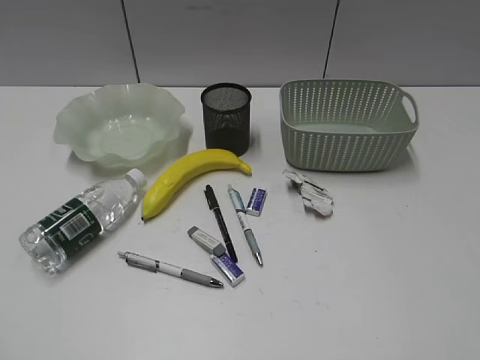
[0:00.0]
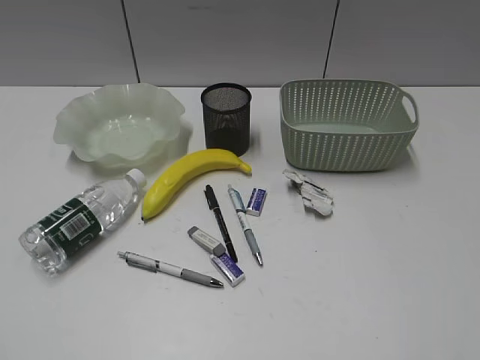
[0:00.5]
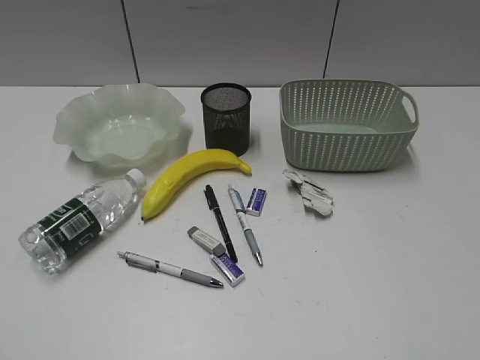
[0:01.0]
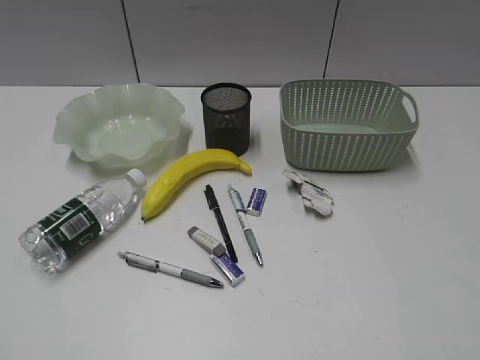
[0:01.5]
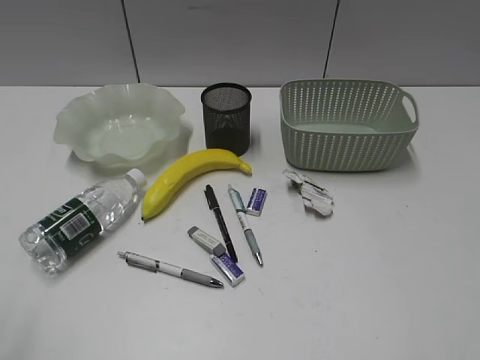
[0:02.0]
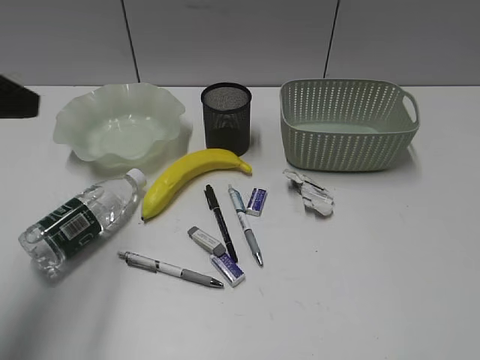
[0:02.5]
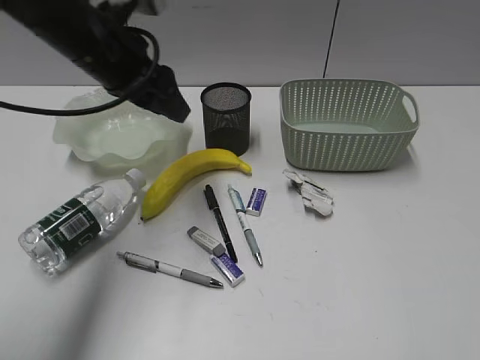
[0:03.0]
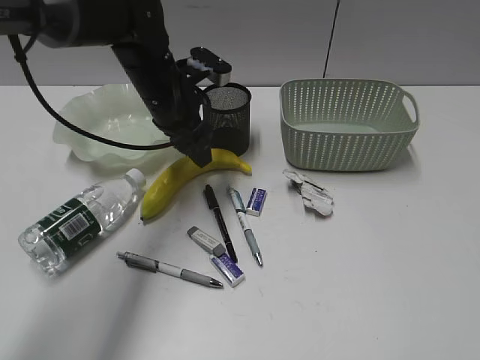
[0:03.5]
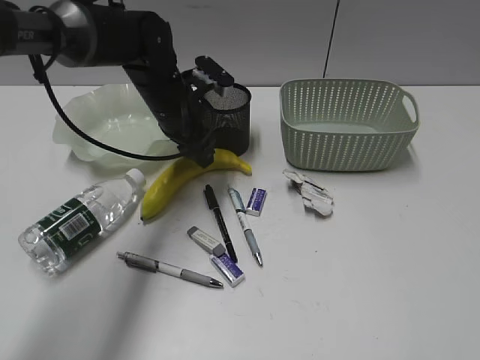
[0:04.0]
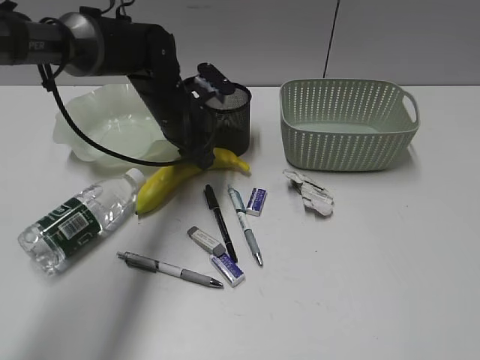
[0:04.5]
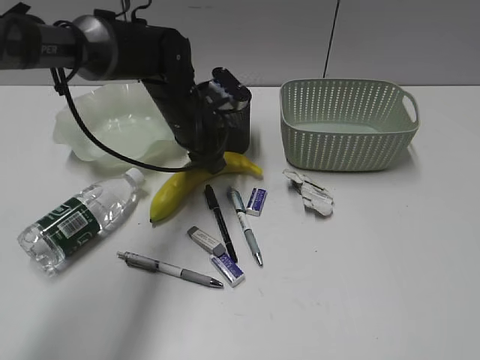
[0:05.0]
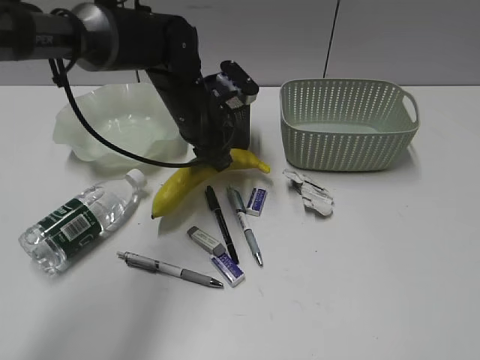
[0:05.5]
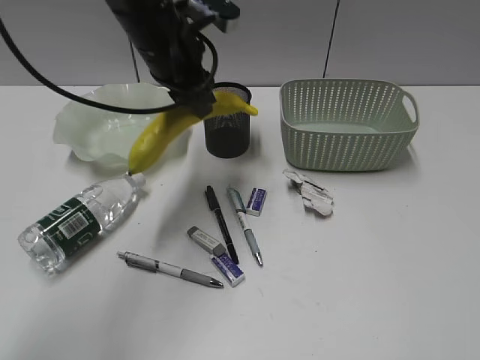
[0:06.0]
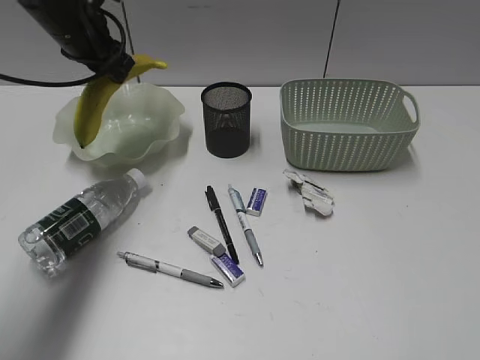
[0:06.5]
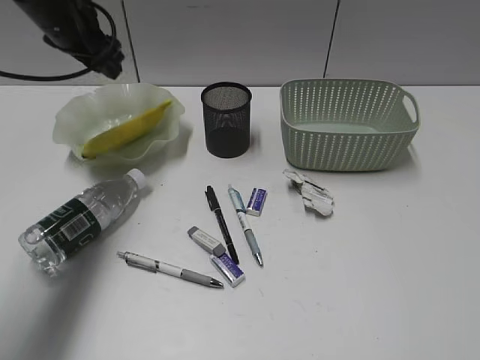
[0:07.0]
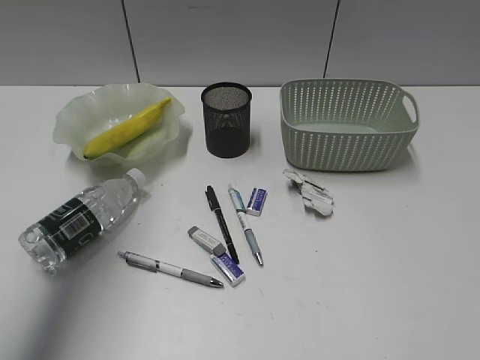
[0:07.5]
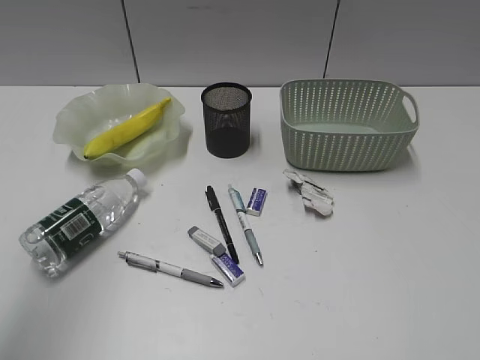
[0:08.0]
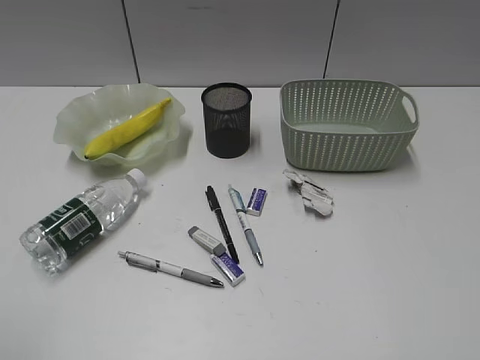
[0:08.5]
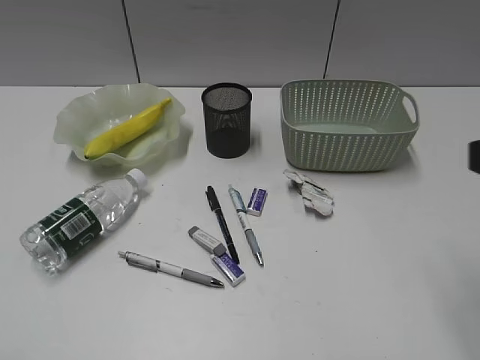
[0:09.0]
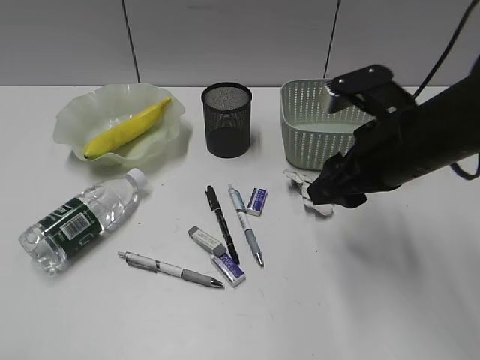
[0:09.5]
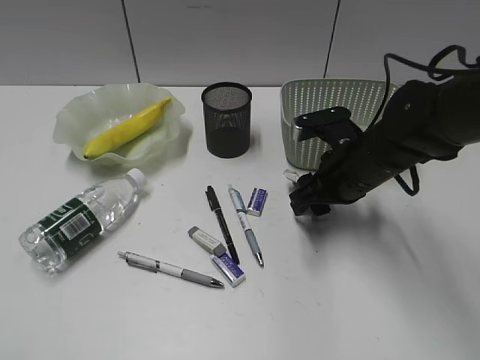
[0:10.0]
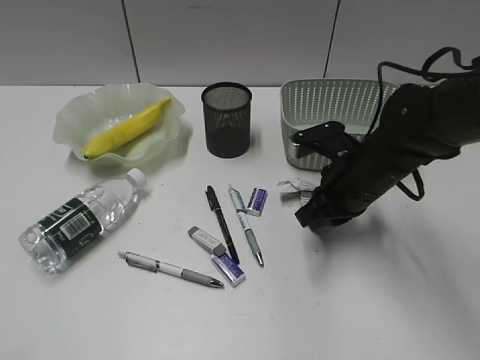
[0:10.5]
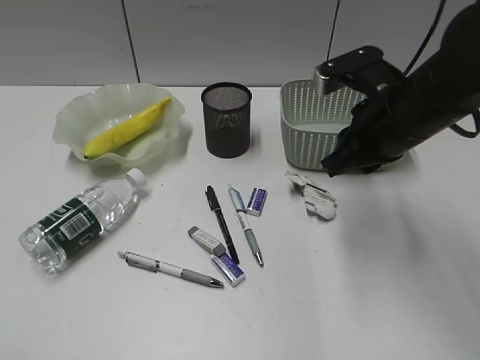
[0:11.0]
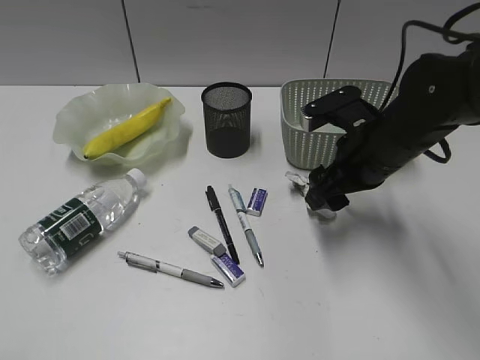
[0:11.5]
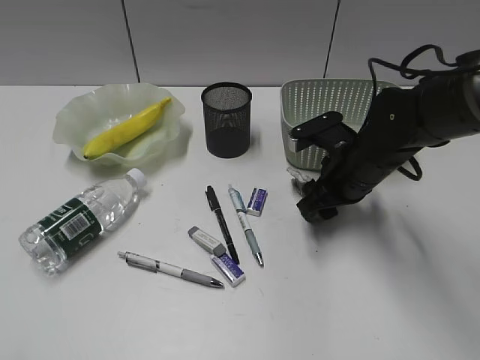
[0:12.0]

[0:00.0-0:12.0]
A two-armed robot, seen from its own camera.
Step, 0:02.0 to 0:04.5: Grasp the banana with left gripper.
Step, 0:05.0 to 0:06.5: Place the banana in the plate with left gripper.
0:02.0 to 0:04.0: The left gripper travels forward, to the right and downward by some 50 cm, and opens up.
0:04.0 to 0:06.0: The left gripper travels upward by approximately 10 cm.
0:06.0 to 0:08.0: The left gripper goes some 35 cm backward, upward and to the left.
0:08.0 to 0:10.0: The right gripper is displaced forward, downward and to the left by about 40 cm. Meanwhile the left gripper is displaced backward and downward by some 25 cm.
0:10.0 to 0:12.0: The right gripper moves approximately 10 cm upward and comes back, and closes, then reopens.

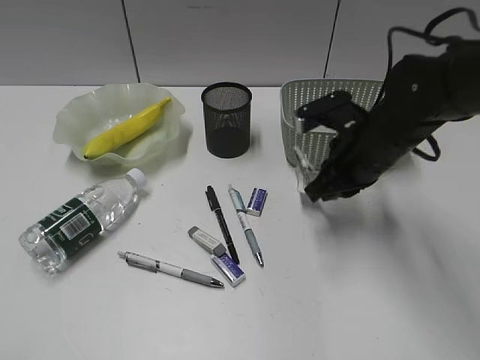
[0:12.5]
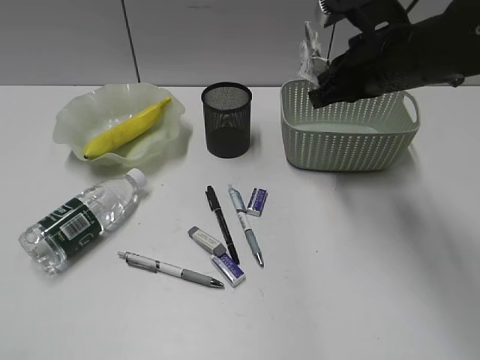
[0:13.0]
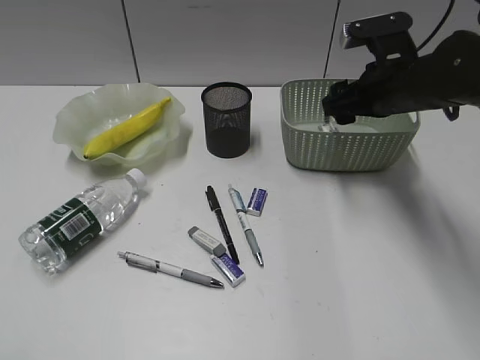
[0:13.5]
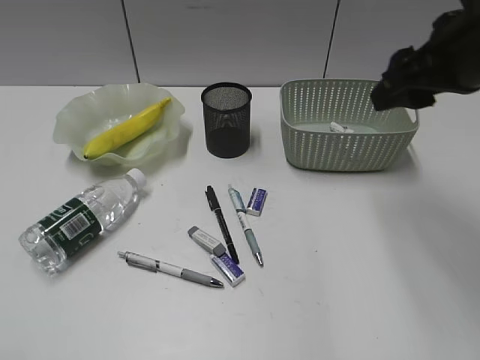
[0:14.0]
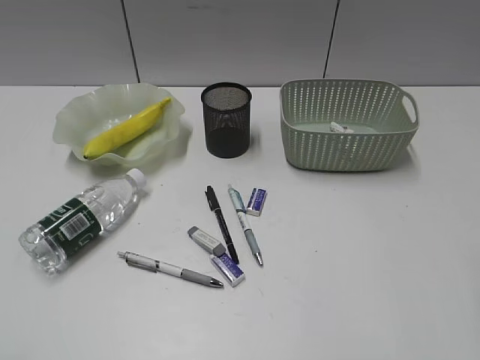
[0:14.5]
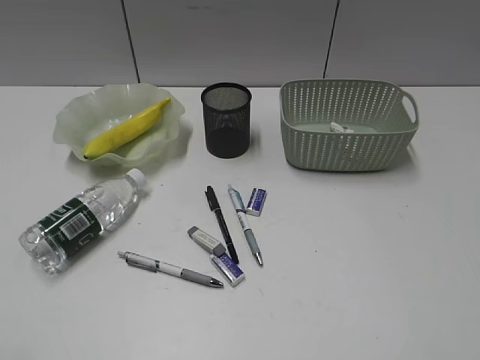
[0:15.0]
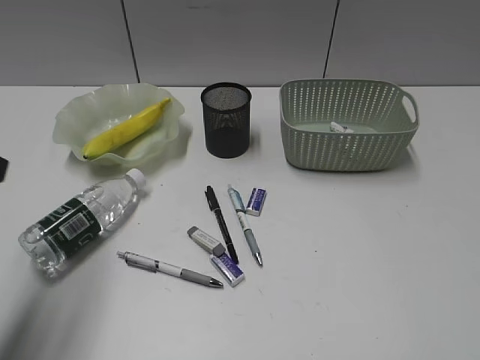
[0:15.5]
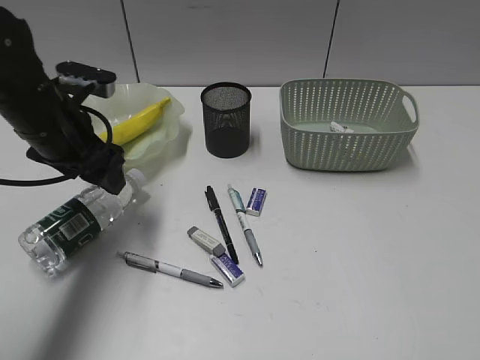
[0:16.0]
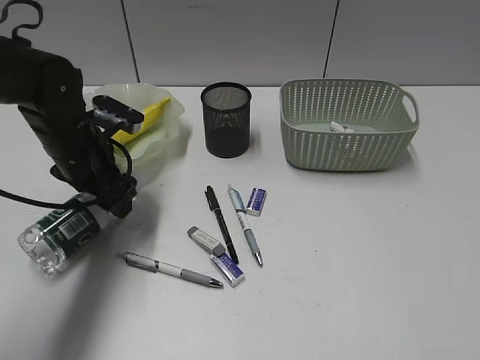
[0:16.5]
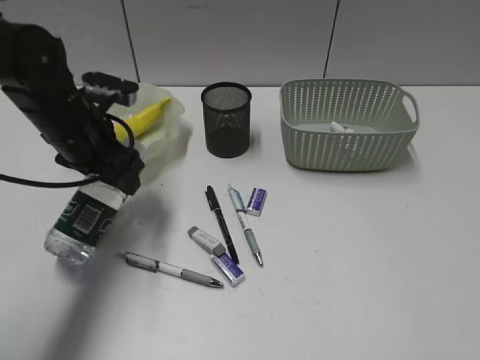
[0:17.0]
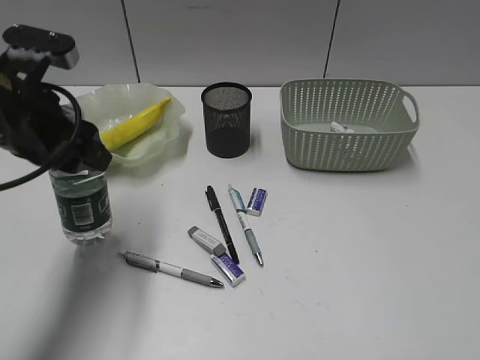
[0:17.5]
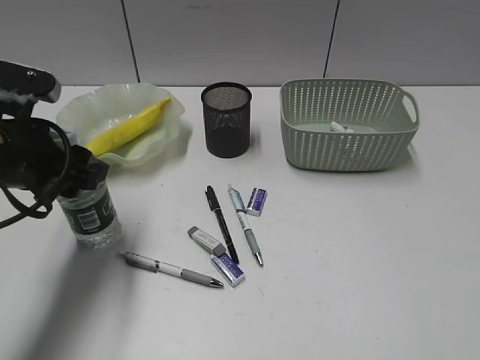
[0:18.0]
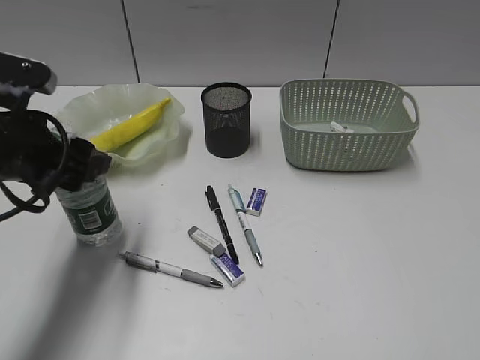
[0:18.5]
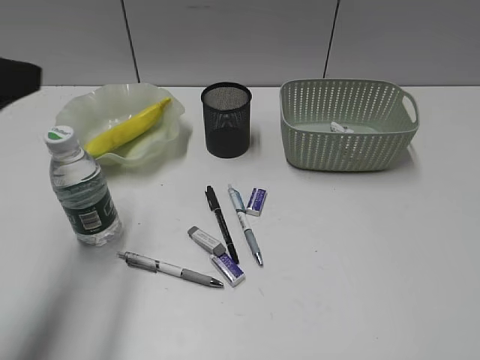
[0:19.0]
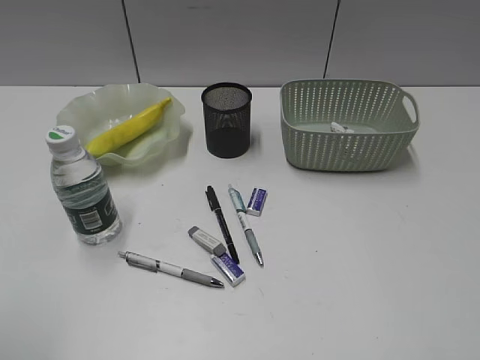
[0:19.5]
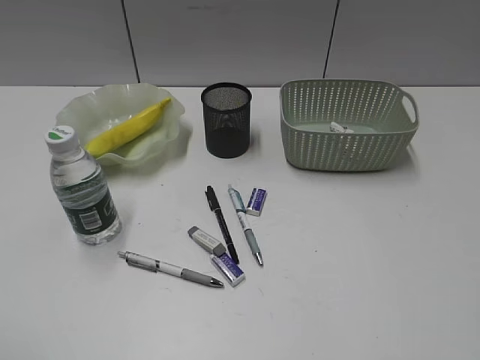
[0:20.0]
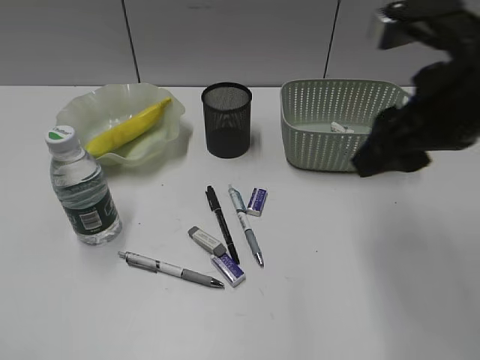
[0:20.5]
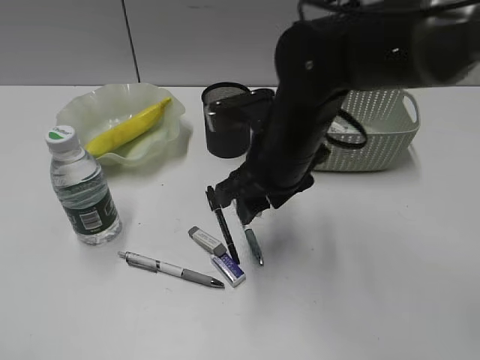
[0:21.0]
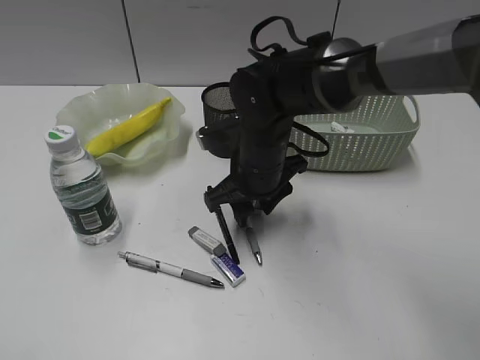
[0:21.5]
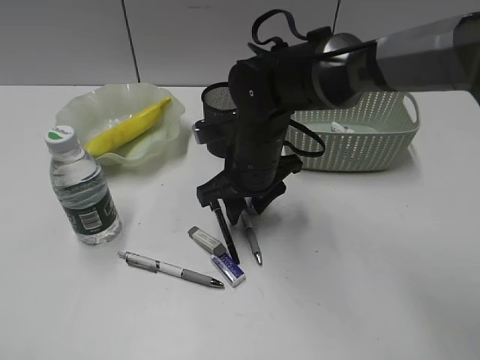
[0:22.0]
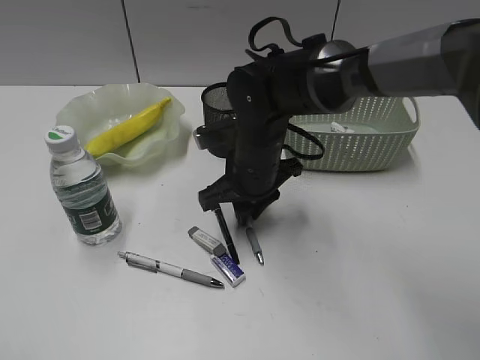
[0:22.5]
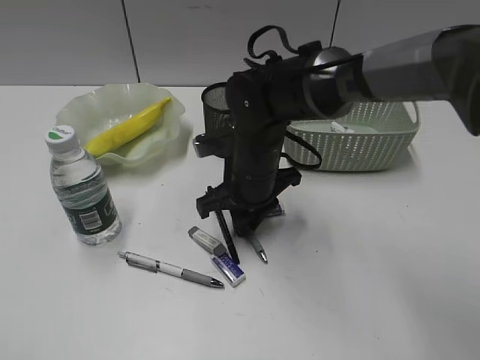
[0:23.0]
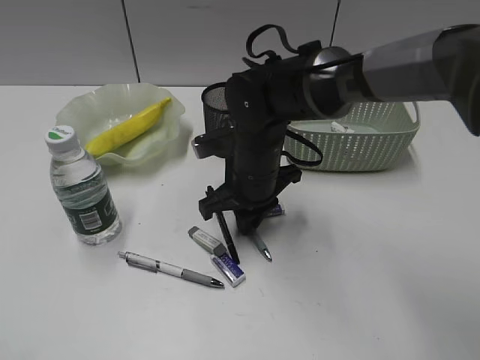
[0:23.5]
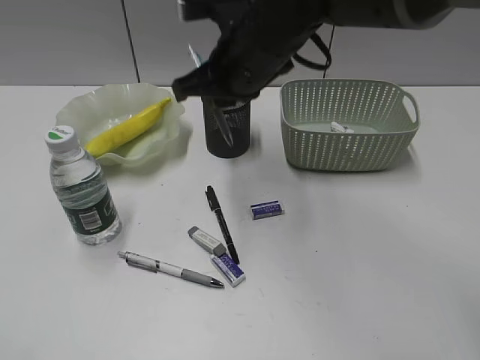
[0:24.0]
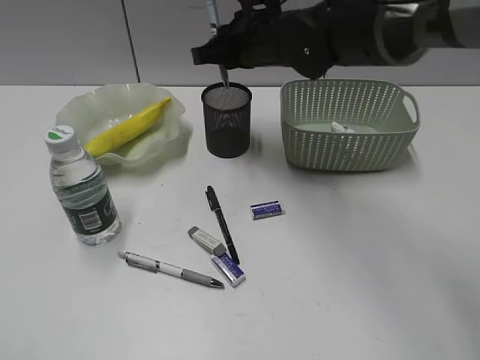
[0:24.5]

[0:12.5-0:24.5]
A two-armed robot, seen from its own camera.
Step, 0:14.0 to 0:16.5: Grasp the bottle with left gripper.
Step, 0:17.0 to 0:18.5: Stand the bottle with left gripper.
Step, 0:19.0 to 0:23.5: Grasp the blue pen with right gripper.
0:12.5 to 0:14.5: The right gripper travels backward, upward and to the right by about 25 cm, and opens up.
0:14.5 to 0:16.5: The left gripper travels forward and downward by some 40 cm.
0:16.5 to 0:18.5: The left gripper travels backward and upward by about 10 cm.
0:18.5 to 0:20.5: The right gripper travels forward and to the left by approximately 30 cm; the left gripper is displaced backward by some 25 cm, and closes.
0:20.5 to 0:22.5: The right gripper shifts some 25 cm downward, to the left and forward, and closes its fingers.
0:22.5 to 0:24.5: The right gripper heads upward and forward, covering some 15 cm.

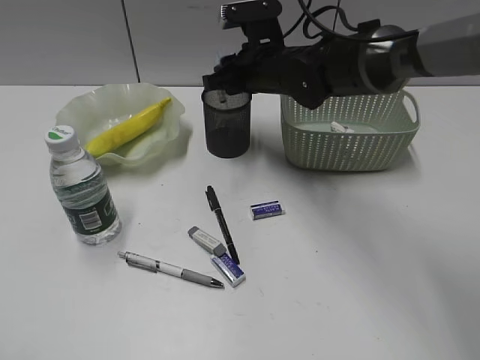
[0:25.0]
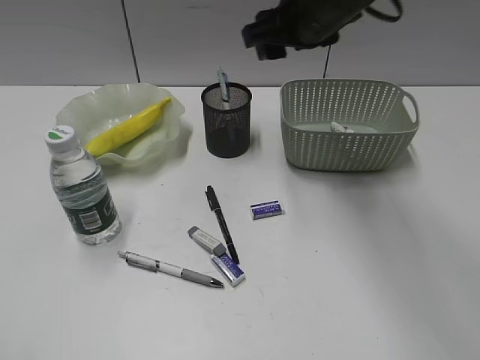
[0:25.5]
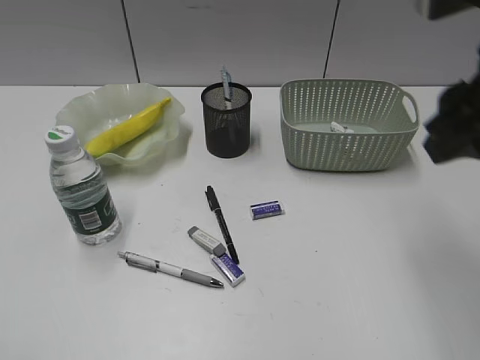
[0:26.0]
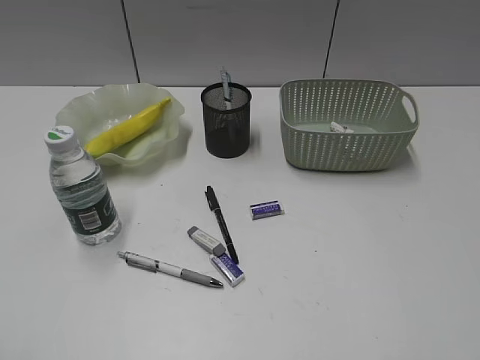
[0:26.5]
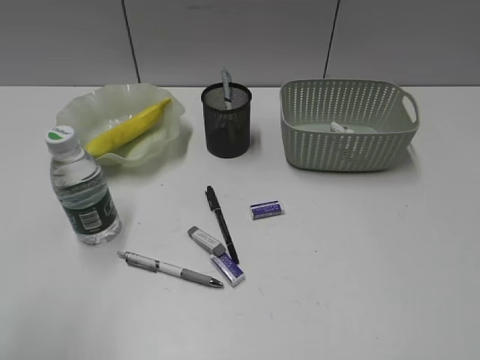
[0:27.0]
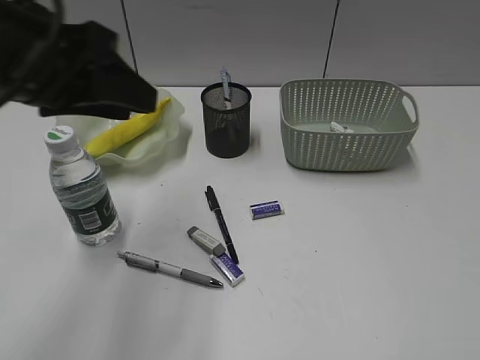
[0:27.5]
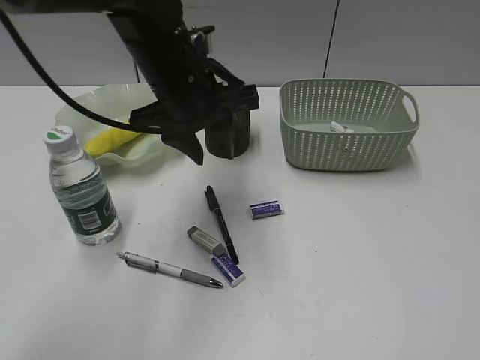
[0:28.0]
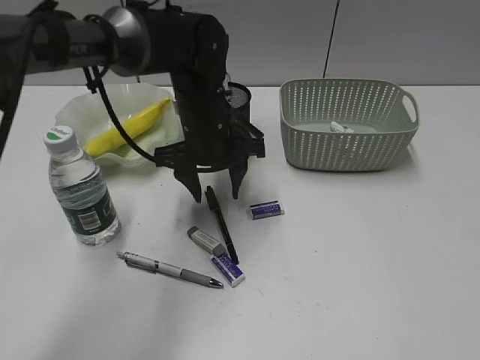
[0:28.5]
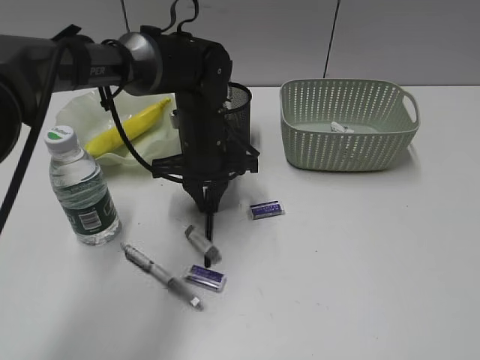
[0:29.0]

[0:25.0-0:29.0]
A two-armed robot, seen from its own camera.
Step, 0:25.5 to 0:29.0: Grasp the black pen with left gripper.
0:25.0 to 0:27.0: The right gripper shifts approximately 50 cm backward and to the right, and opens, then closes once more. The left gripper moves forward, some 5 cm.
0:27.0 to 0:29.0: The left gripper shifts approximately 50 cm forward, to the right and downward.
